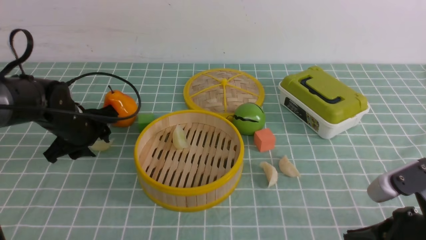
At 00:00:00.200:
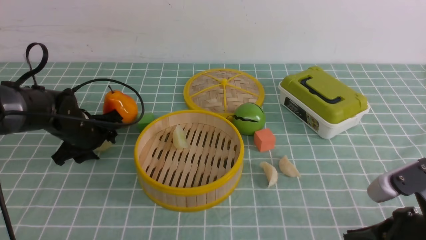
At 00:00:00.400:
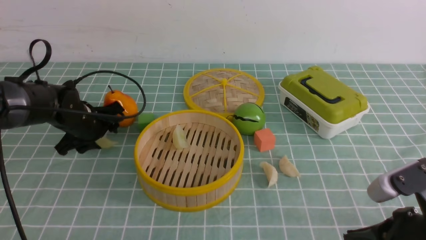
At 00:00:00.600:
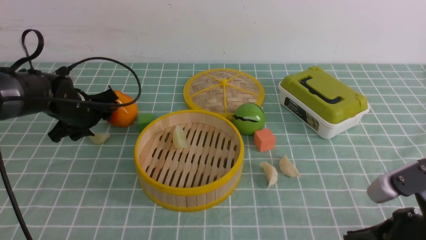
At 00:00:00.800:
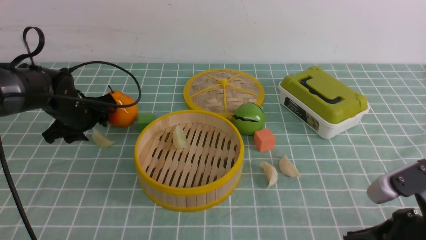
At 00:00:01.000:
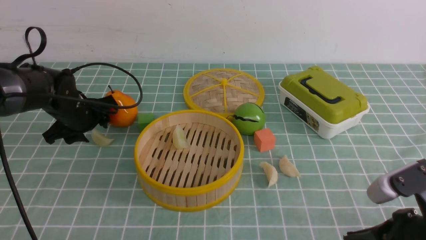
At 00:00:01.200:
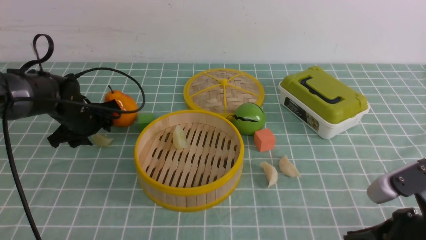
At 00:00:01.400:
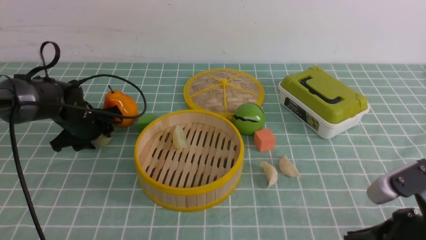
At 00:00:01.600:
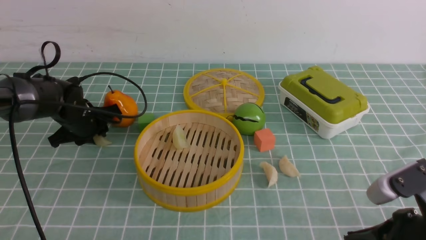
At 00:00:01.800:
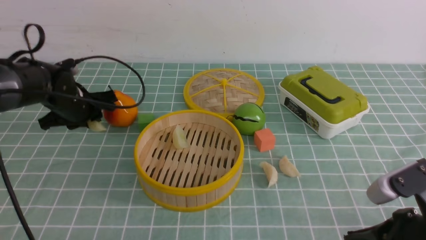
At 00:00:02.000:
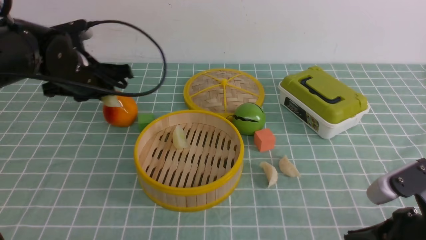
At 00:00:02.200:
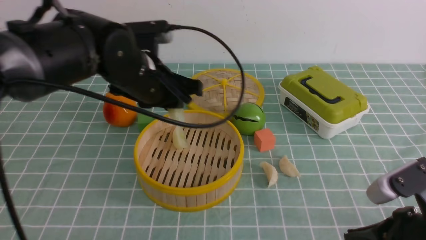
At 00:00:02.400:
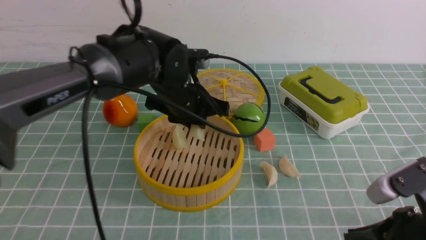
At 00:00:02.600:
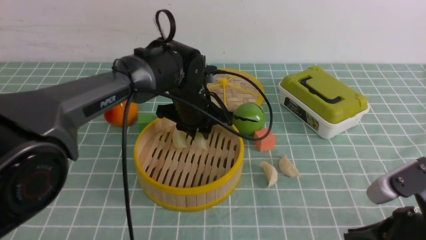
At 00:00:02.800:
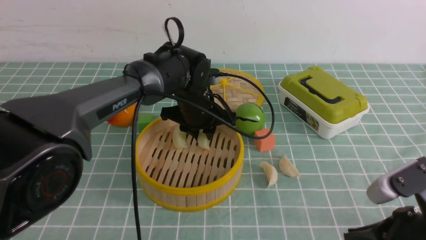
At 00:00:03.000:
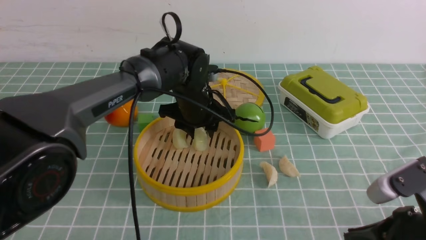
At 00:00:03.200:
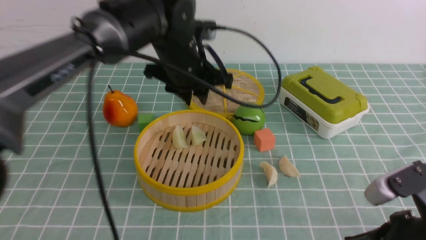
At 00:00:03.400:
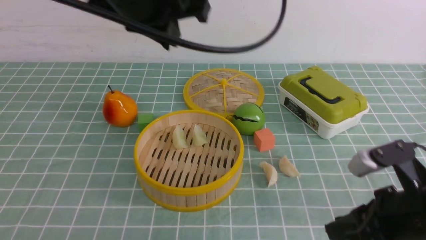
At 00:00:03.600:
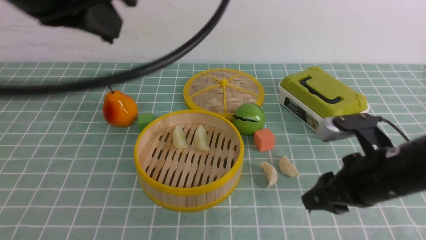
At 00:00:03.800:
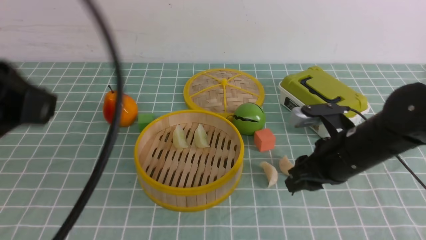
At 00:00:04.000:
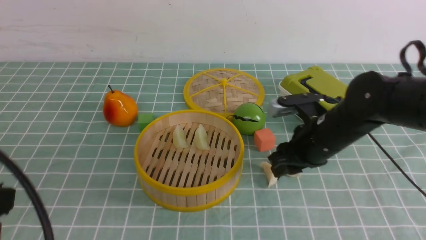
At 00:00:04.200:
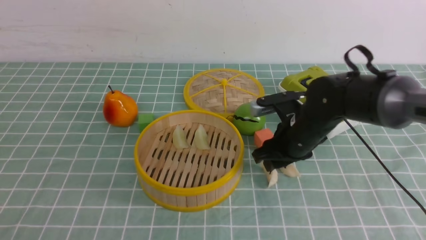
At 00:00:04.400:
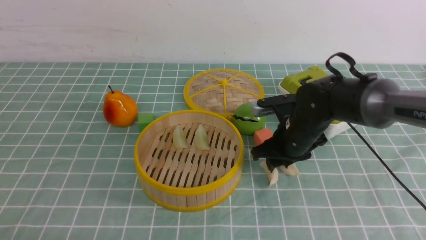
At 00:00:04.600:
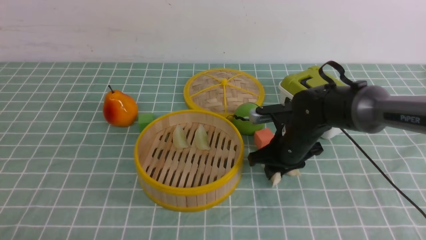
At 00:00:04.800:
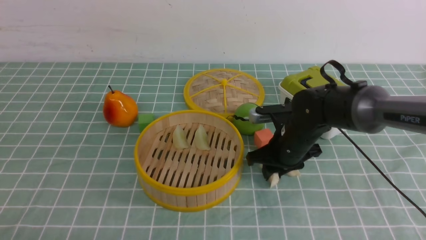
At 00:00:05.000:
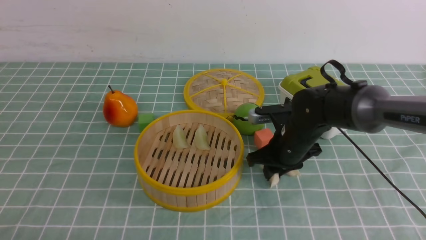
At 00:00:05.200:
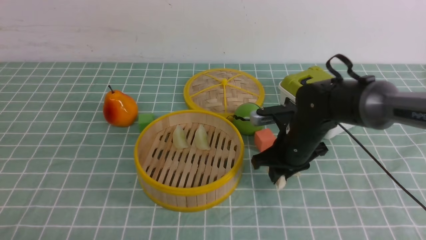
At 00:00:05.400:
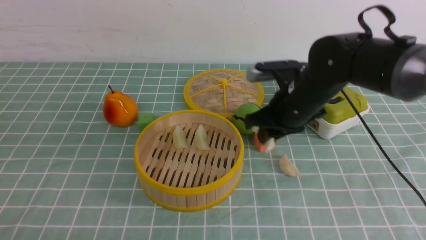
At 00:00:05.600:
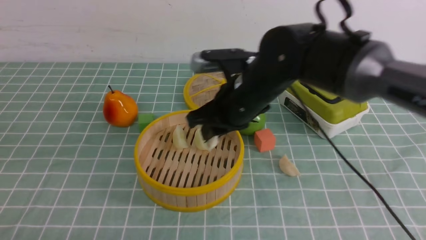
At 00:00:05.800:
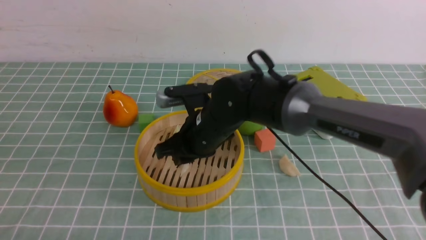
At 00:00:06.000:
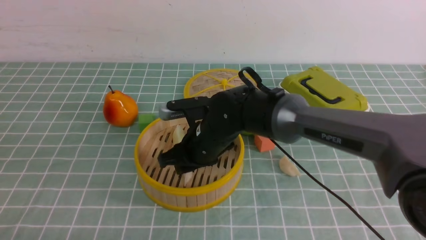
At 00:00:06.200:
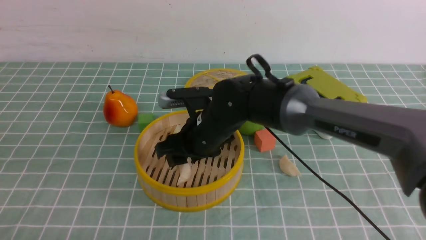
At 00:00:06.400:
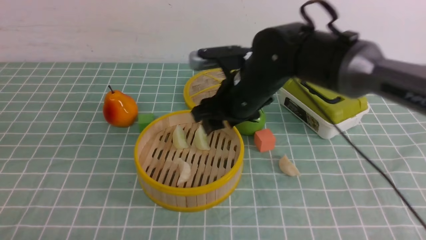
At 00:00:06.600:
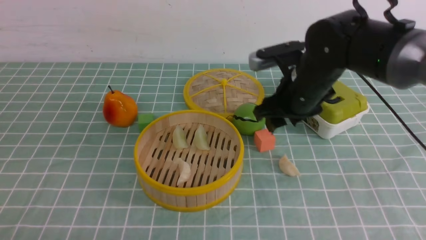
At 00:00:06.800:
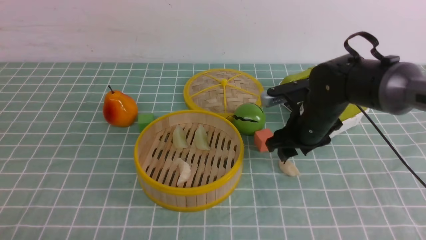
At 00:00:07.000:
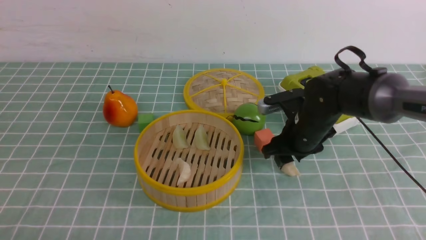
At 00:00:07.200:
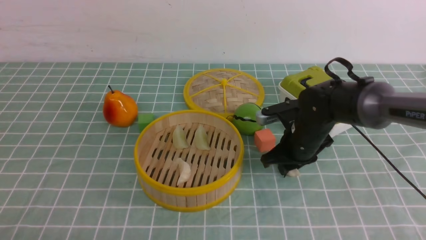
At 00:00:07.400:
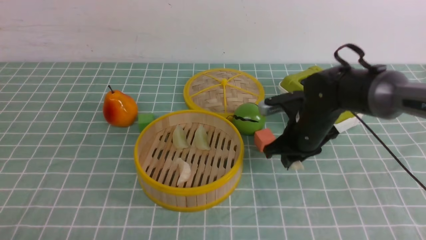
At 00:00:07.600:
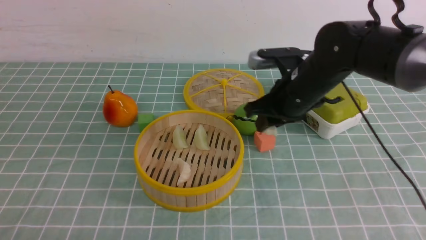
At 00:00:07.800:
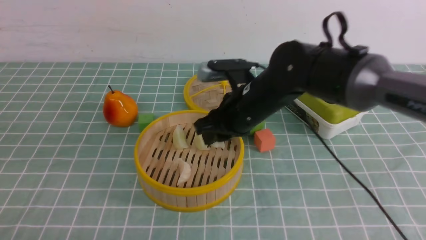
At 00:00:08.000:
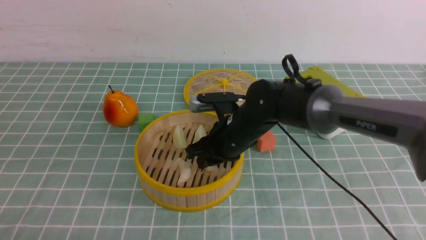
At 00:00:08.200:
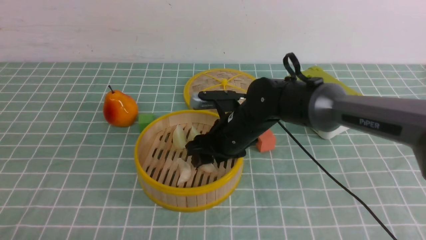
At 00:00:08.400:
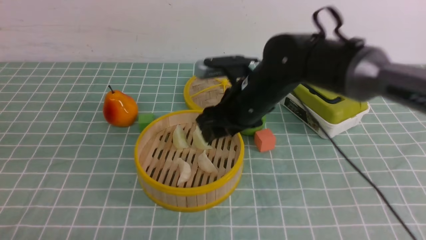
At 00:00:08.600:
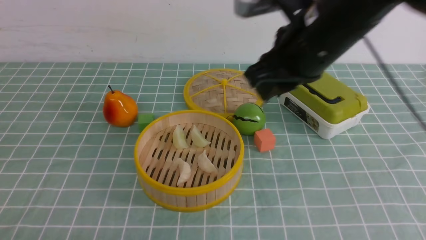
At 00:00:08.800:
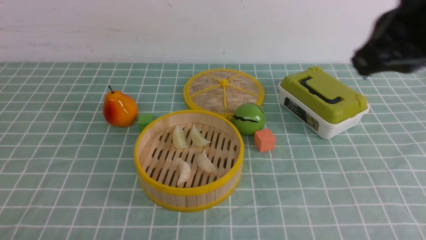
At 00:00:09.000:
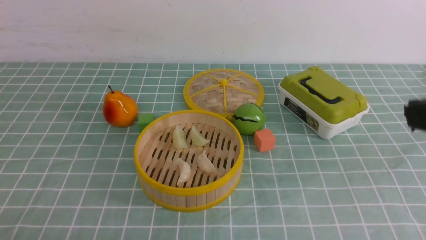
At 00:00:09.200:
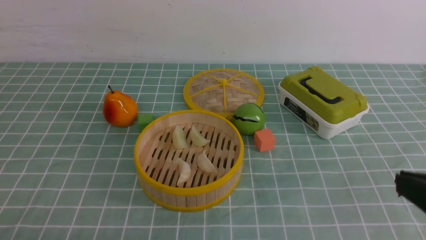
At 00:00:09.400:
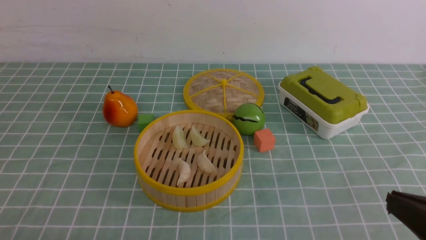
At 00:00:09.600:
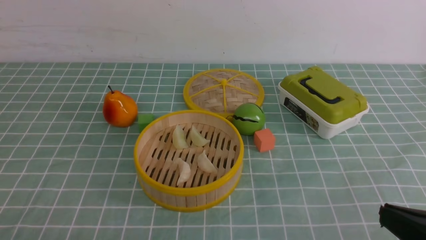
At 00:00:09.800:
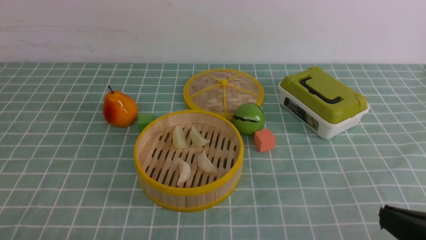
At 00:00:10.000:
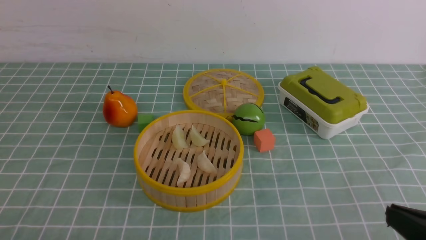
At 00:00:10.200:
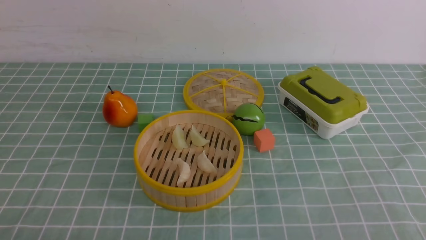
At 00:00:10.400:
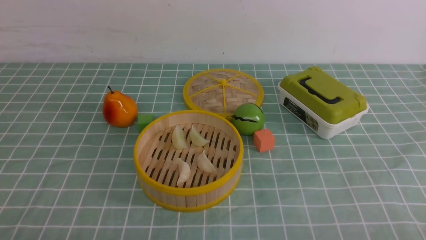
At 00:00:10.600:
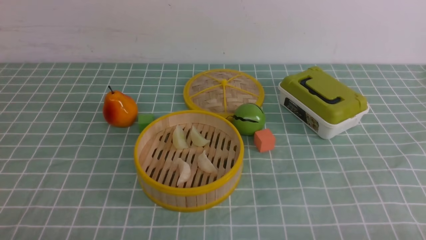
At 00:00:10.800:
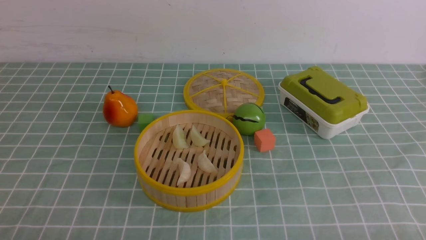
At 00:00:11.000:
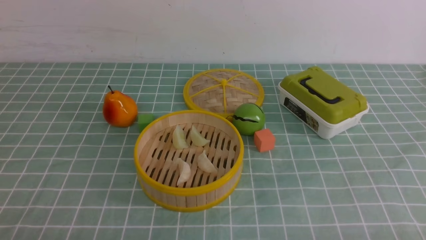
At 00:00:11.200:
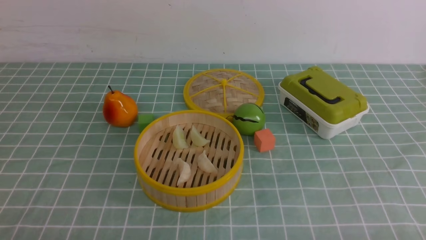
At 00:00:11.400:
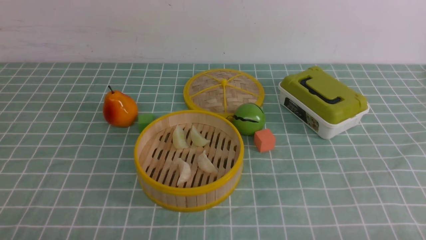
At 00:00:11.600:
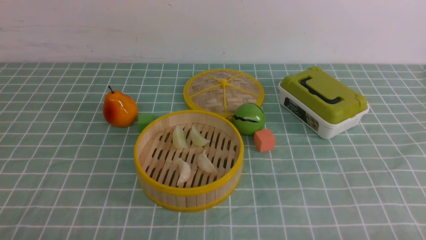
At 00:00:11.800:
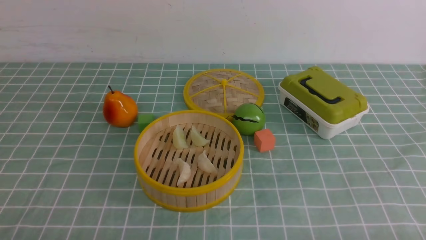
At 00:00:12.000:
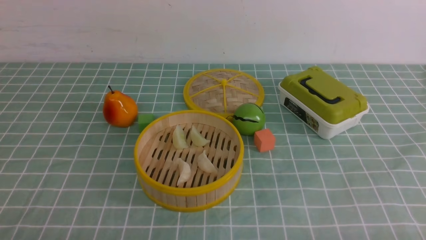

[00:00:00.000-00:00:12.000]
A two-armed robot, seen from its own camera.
Task of the whole recording: put the dumplings into the steamer on the table with the blue tablecloth.
Step, 00:00:00.000 to 00:00:02.000: use the left arm to grab a dumpling.
Step, 00:00:02.200 to 00:00:03.000: use the left arm to put the dumpling into the steamer.
Step, 00:00:03.200 to 00:00:05.400: use the right arm to grab a dumpling.
Step, 00:00:05.600 to 00:00:06.200: use the right arm to put the dumpling into the steamer.
Step, 00:00:06.400 to 00:00:07.600: use the right arm to grab a dumpling.
Step, 00:00:08.000 to 00:00:08.600: use the right arm to put the dumpling into the steamer.
00:00:00.000 to 00:00:01.600: There are only small adjustments of the grippers.
00:00:01.600 to 00:00:03.000: The left gripper heads to the right, covering about 20 cm.
00:00:03.000 to 00:00:04.400: The right gripper goes about 25 cm forward and to the left, and opens. The left gripper heads backward and to the left, covering about 40 cm, and closes its fingers.
00:00:04.400 to 00:00:06.000: The right gripper heads to the left, covering about 15 cm.
00:00:06.000 to 00:00:07.600: The right gripper shifts some 10 cm to the right.
00:00:07.600 to 00:00:09.000: The right gripper goes approximately 30 cm backward, upward and to the right, and closes up.
00:00:09.000 to 00:00:10.400: The right gripper moves downward and backward, about 20 cm.

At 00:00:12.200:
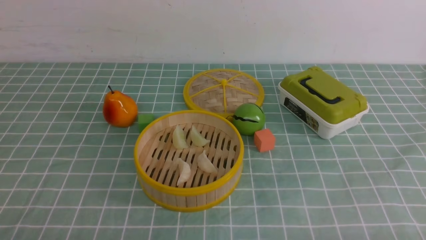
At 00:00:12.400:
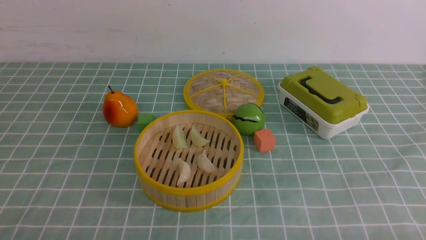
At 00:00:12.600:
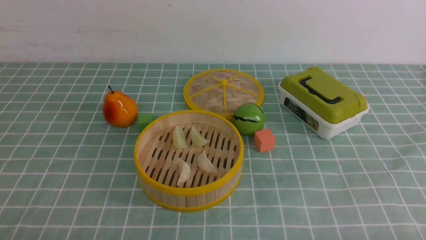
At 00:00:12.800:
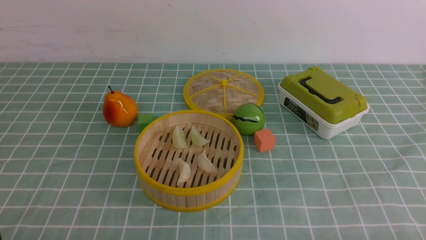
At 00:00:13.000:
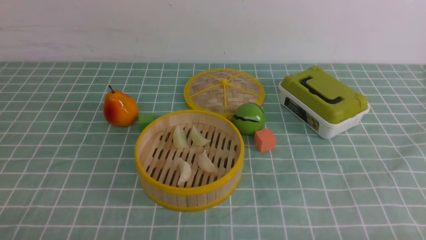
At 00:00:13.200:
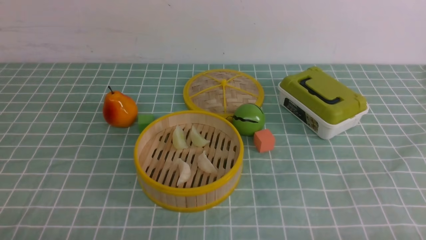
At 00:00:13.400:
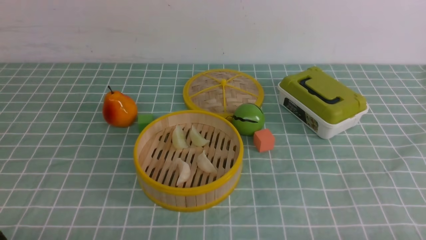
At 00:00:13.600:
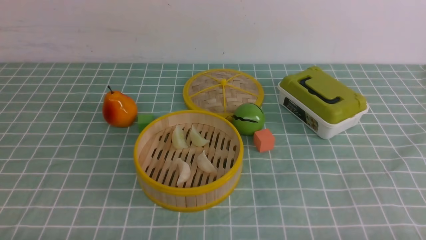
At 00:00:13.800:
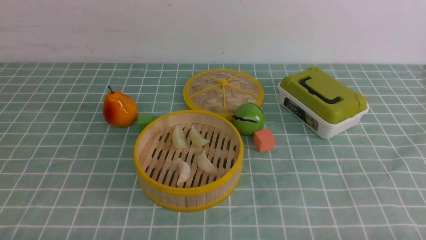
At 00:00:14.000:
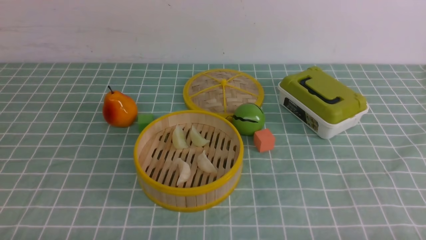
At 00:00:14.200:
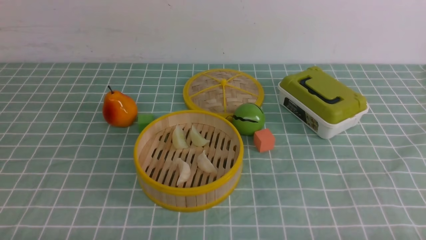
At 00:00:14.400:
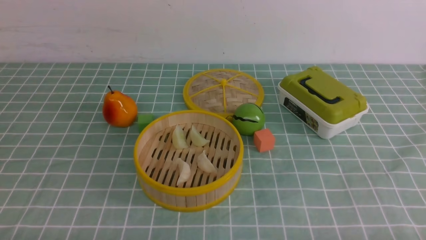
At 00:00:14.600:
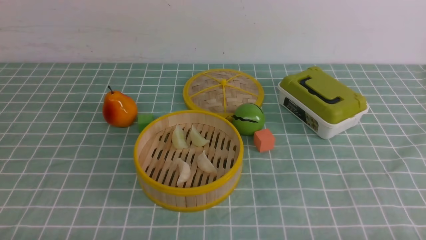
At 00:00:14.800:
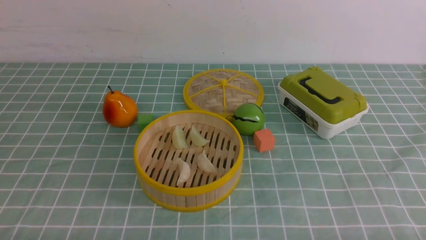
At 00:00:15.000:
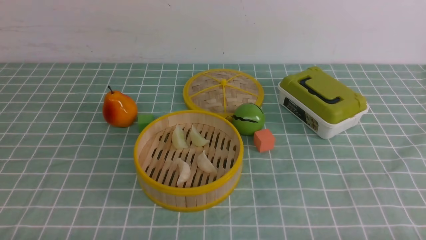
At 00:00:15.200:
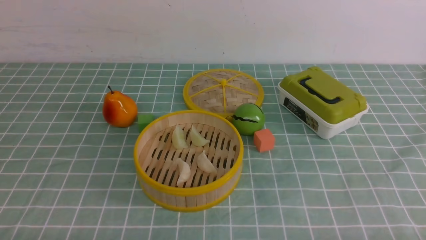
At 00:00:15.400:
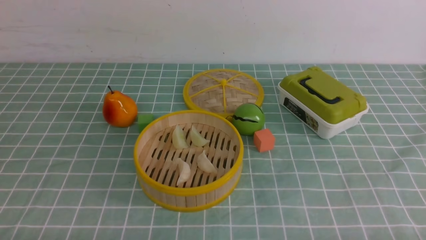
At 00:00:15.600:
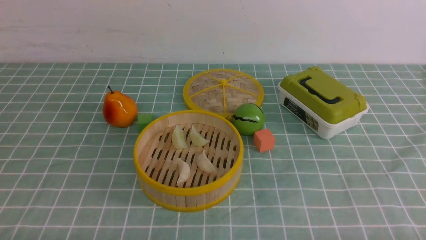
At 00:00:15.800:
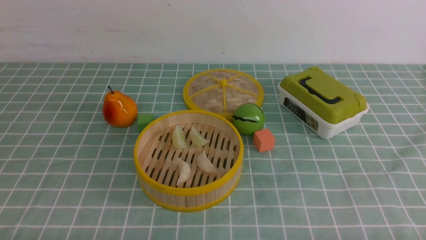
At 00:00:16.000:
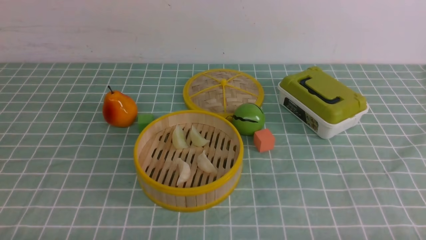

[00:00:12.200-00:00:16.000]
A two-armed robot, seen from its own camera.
Task of the whole recording: put the dumplings into the steamer on the table with the blue tablecloth.
00:00:14.800 to 00:00:16.000: The two grippers keep their place.
